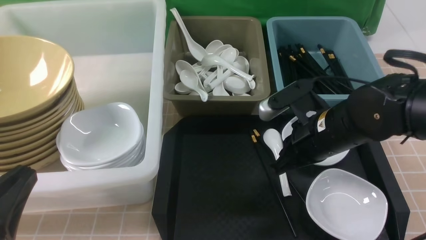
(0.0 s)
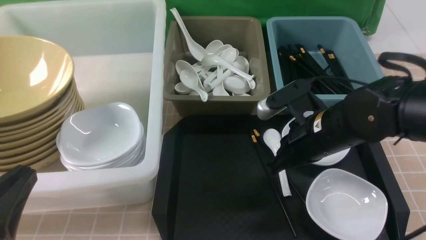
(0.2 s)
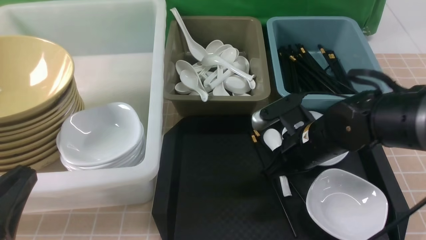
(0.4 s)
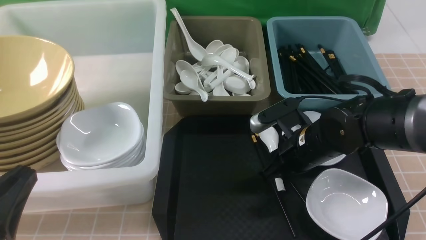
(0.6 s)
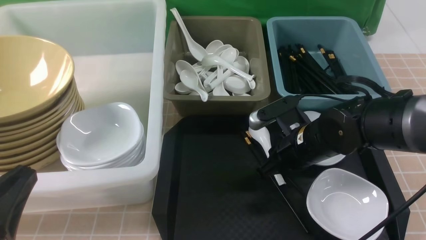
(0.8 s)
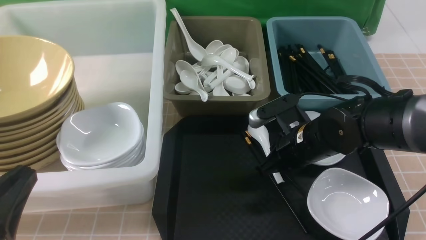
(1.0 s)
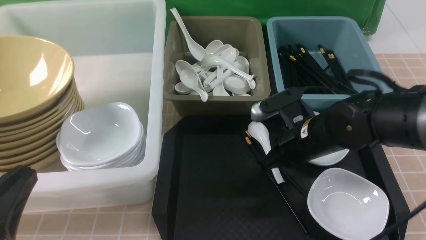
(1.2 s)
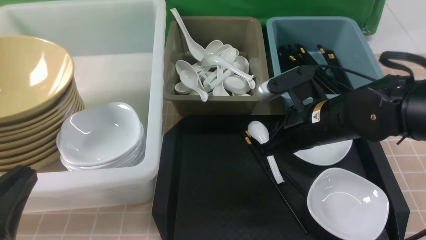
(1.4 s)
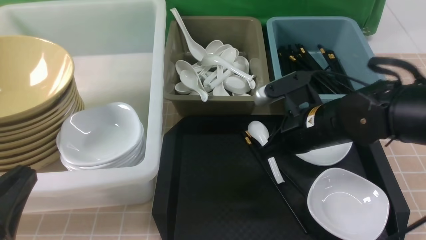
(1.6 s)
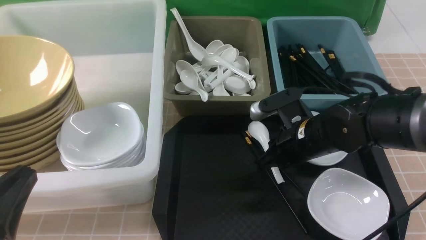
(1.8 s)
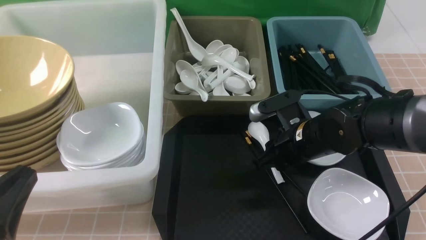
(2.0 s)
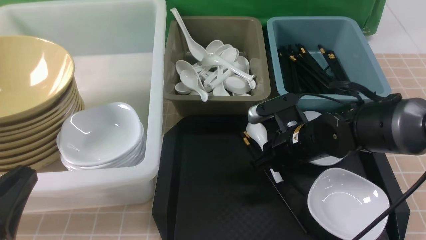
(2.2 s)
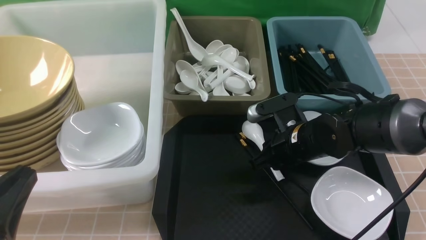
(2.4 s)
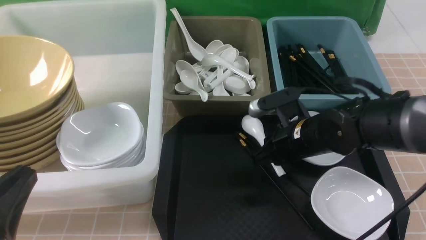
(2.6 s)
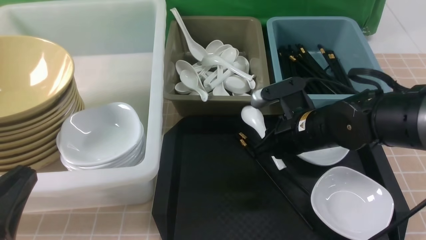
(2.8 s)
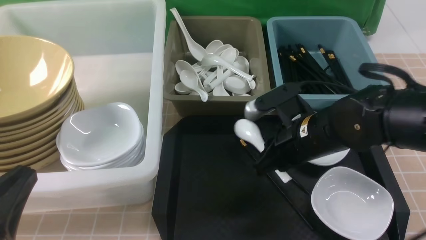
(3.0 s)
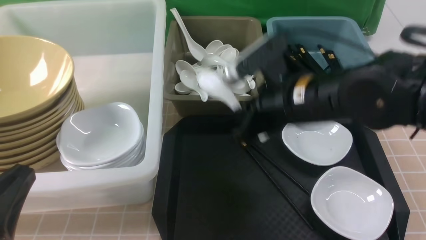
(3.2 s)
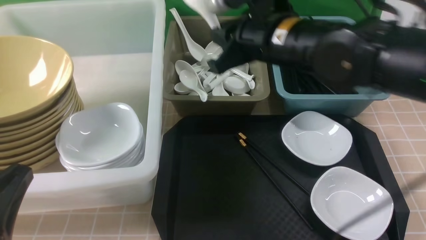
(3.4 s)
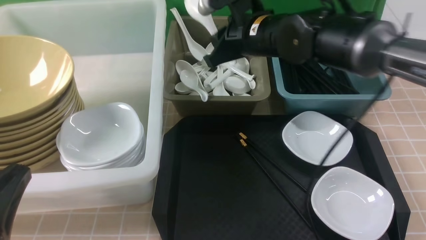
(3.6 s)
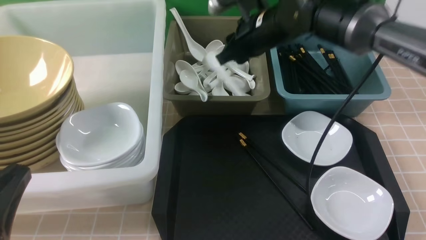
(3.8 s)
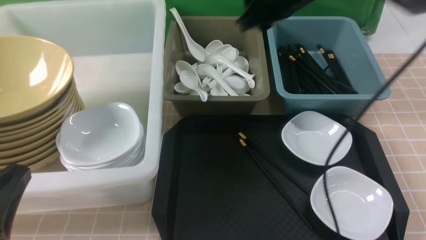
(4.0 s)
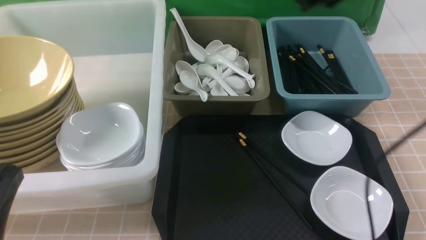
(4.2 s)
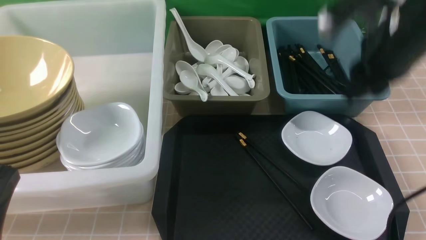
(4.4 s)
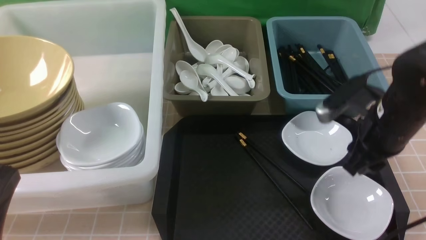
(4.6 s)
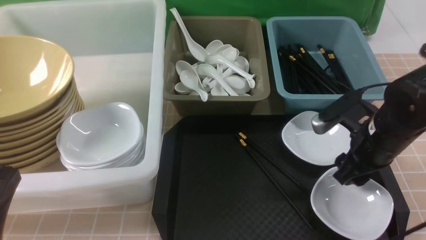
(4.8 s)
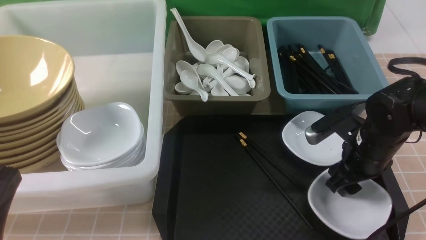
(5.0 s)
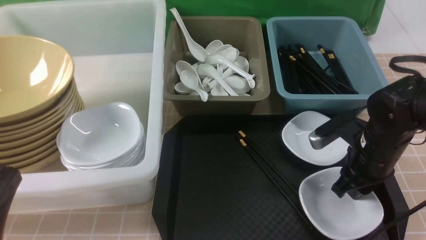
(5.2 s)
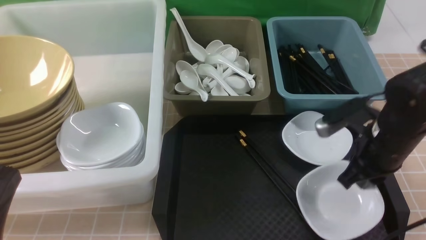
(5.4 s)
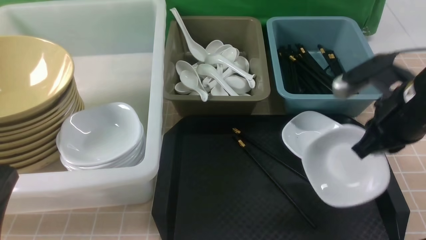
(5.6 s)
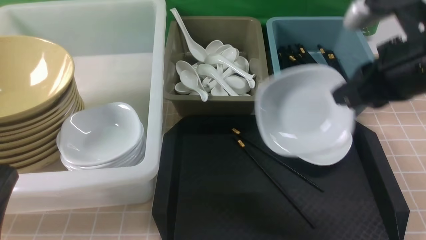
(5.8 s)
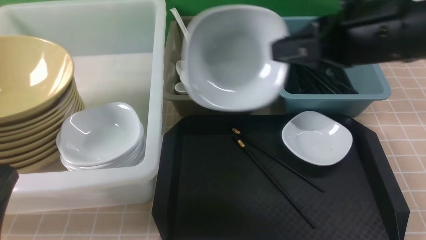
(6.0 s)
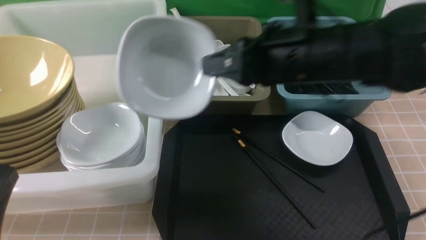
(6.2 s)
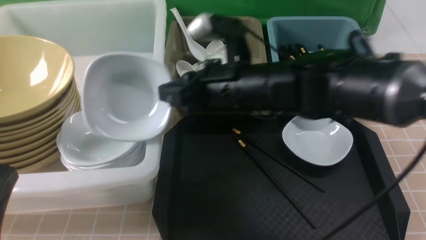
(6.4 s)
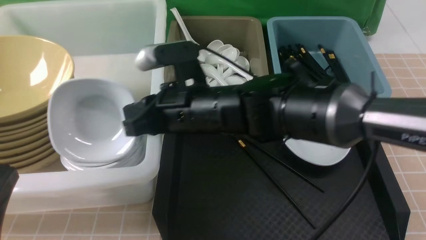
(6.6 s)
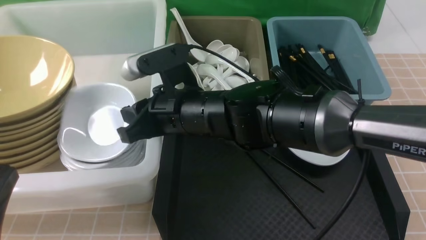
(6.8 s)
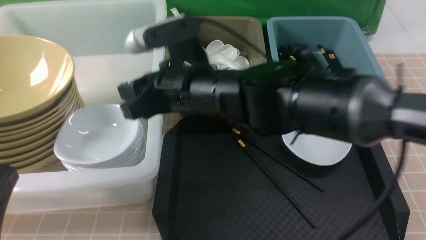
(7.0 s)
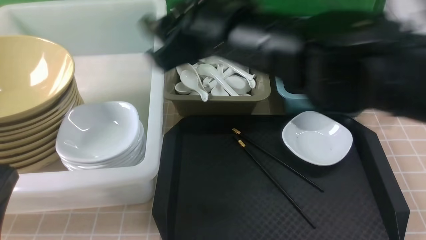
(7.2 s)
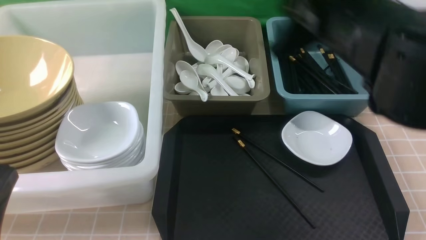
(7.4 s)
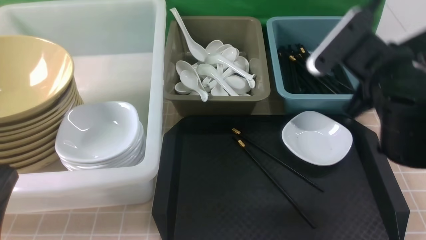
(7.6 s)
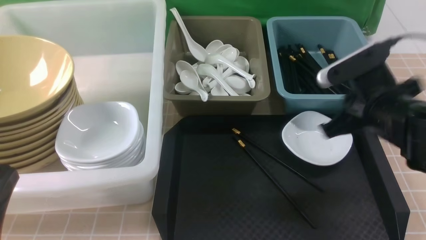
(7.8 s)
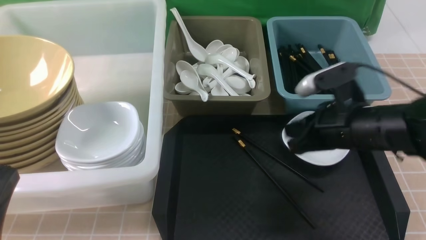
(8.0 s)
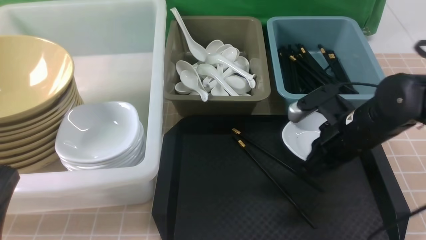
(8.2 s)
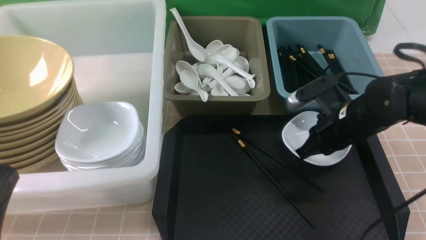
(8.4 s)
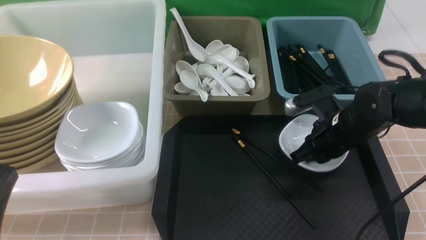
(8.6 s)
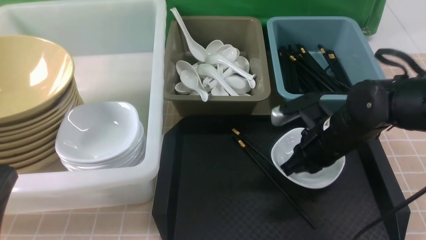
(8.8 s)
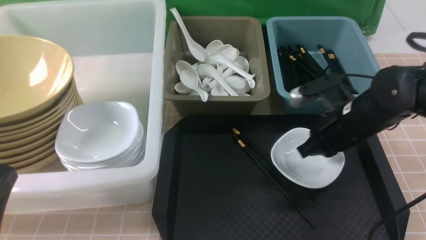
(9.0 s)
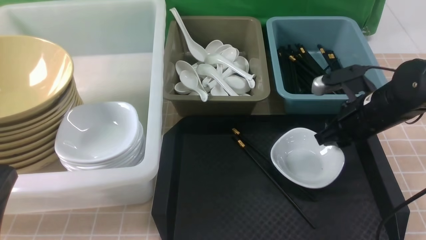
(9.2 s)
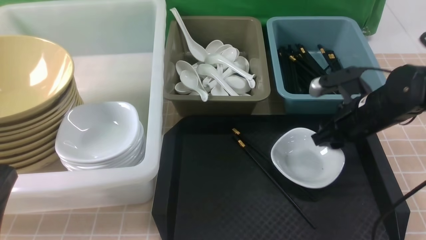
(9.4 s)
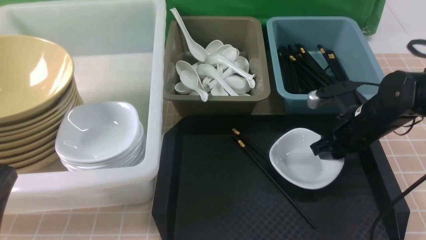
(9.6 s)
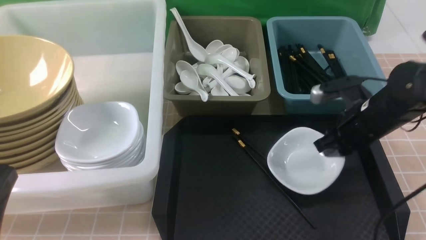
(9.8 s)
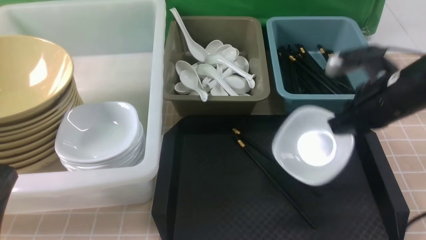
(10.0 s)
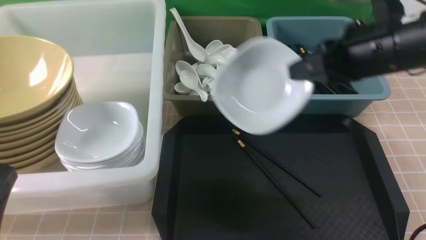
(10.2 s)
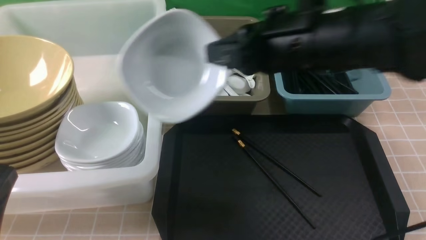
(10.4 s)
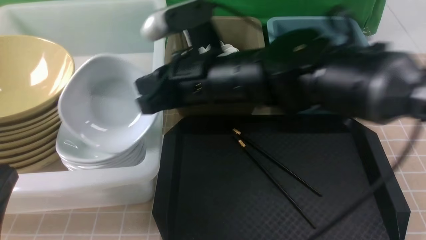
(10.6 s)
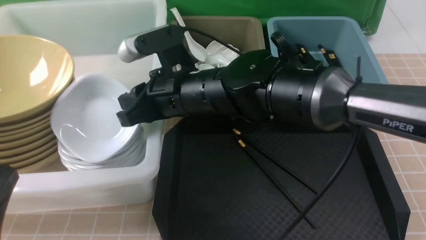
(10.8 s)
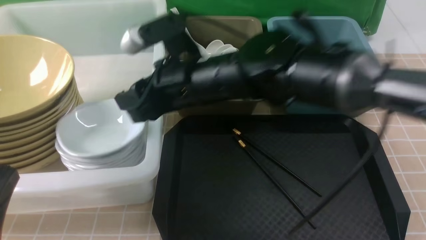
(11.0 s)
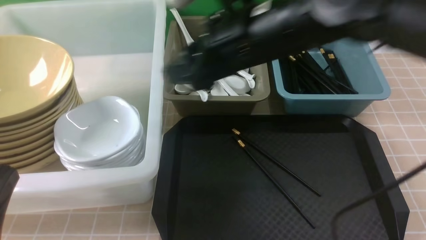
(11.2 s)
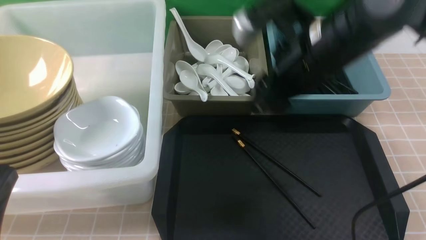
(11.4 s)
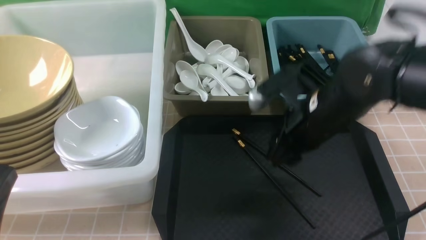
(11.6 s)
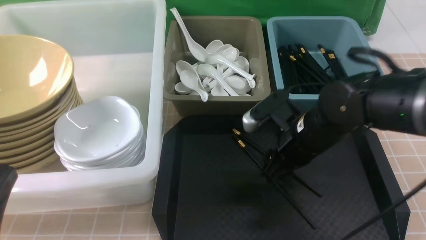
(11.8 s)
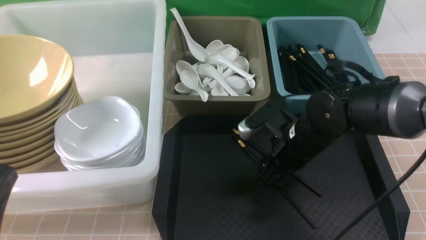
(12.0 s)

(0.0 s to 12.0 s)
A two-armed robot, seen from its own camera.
Task of the whole recording: on brown table put chopsticks spoon bowls plates into blue grey white boxes.
Step, 0.0 s - 2.4 s: use the right arm to grab the soup spoon in the middle.
Step, 2.8 s - 4.2 s: use the right arm to put the soup spoon into the small storage box in the middle.
Step, 4.4 s - 5.8 s: use the right arm to grab the plate.
Step, 6.0 s - 6.8 s: use the right arm to put the plate into the large storage box on the left.
Step, 7.0 s - 10.2 s: use the right arm to grab the plate.
Step, 10.4 s - 11.2 s: use the right arm to put the plate into the large storage box on the left.
0.0 s - 3.0 s: The grippers stay close to where they were, moving slightly.
3.0 s - 4.4 s: The right gripper moves to the right and upward, about 15 cm.
4.4 s - 6.0 s: The right gripper heads to the left and backward, covering roughly 10 cm, reaches roughly 15 cm downward, then returns, and closes.
6.0 s - 7.6 s: The right gripper is displaced downward by approximately 5 cm, moves some 15 cm to the left and comes back, and opens, then closes once more.
7.6 s - 9.0 s: The right gripper moves downward, some 10 cm.
9.0 s - 10.4 s: The right gripper moves upward and to the left, roughly 20 cm, and opens, then closes again.
10.4 s - 12.0 s: The right gripper swings up and down, approximately 15 cm each way, with 2 reversals, and opens its fingers.

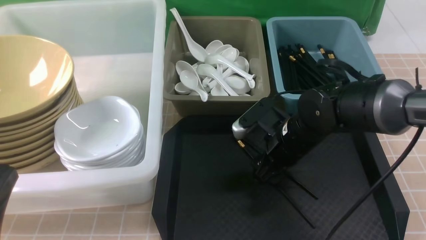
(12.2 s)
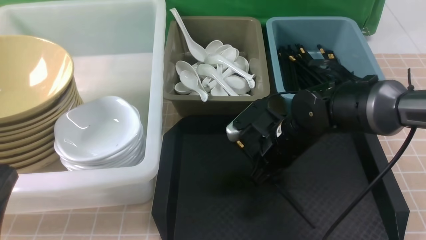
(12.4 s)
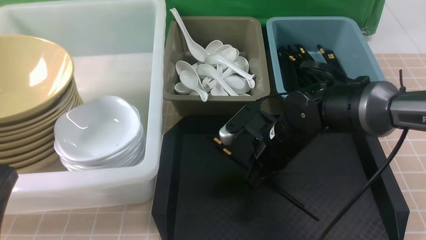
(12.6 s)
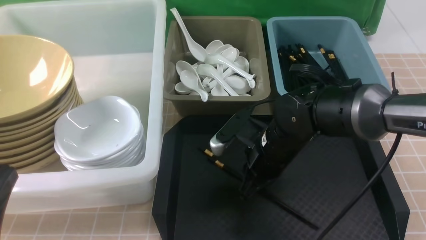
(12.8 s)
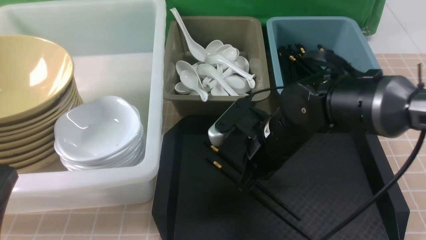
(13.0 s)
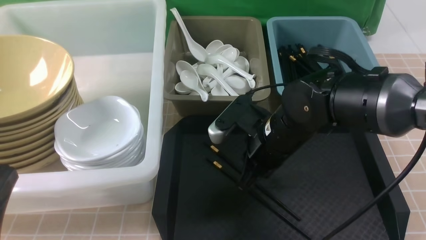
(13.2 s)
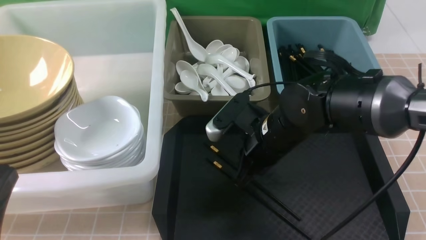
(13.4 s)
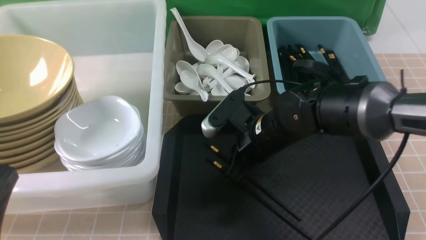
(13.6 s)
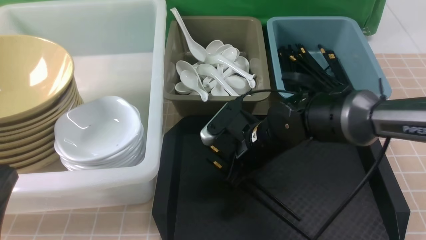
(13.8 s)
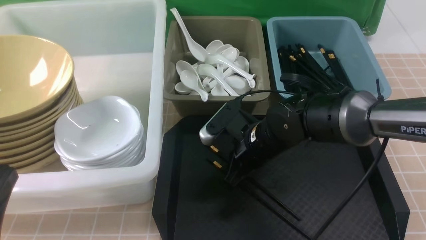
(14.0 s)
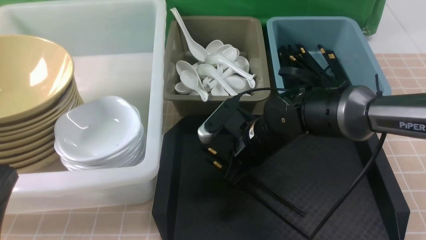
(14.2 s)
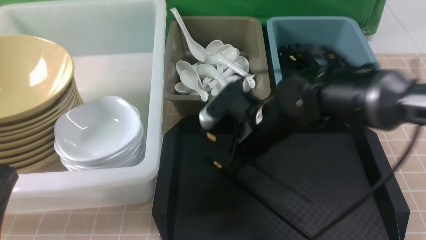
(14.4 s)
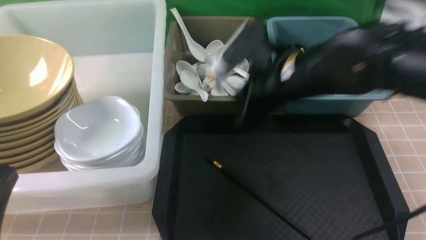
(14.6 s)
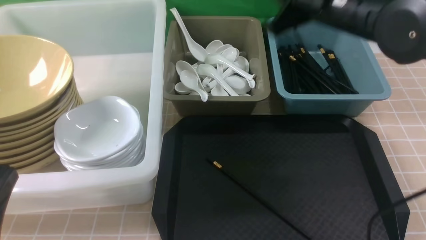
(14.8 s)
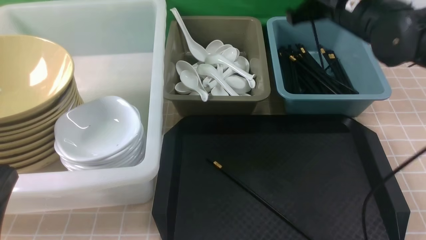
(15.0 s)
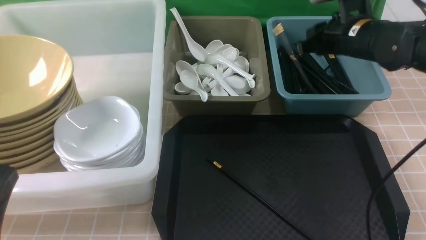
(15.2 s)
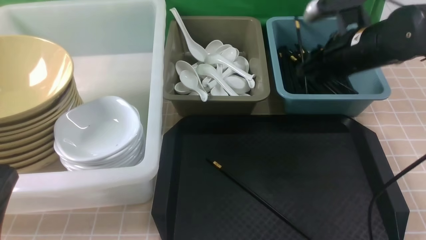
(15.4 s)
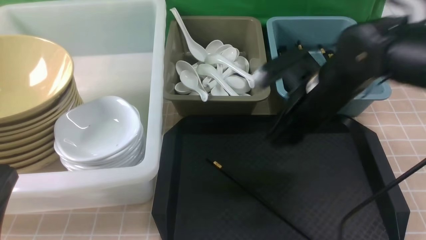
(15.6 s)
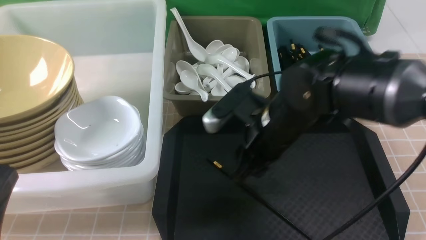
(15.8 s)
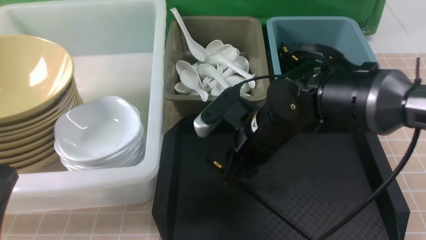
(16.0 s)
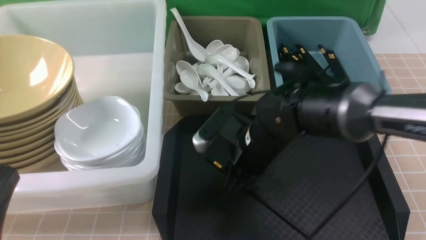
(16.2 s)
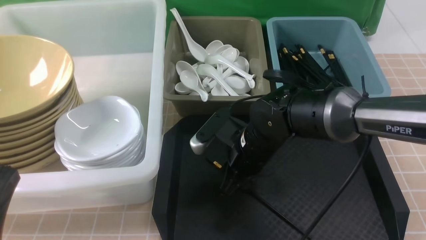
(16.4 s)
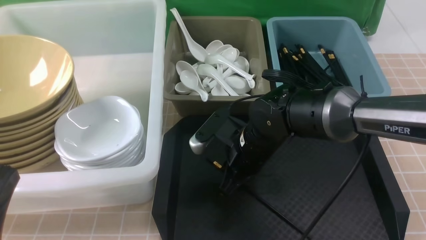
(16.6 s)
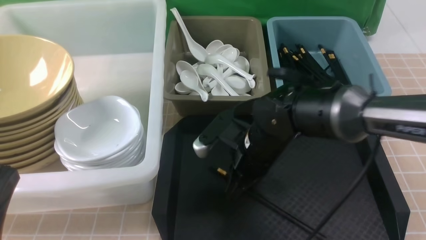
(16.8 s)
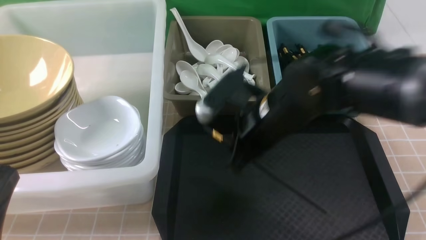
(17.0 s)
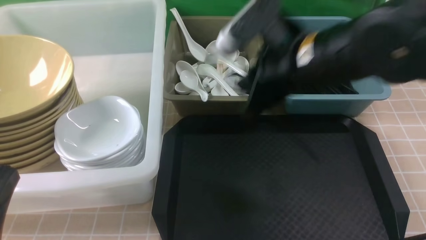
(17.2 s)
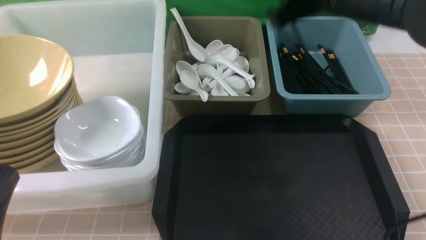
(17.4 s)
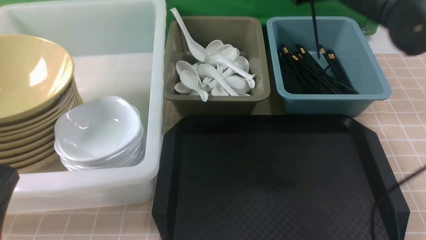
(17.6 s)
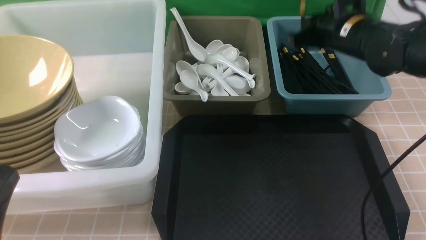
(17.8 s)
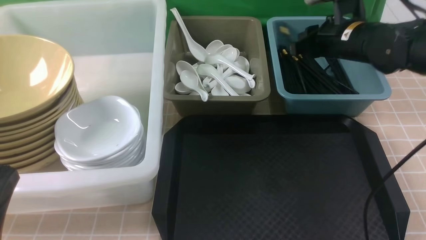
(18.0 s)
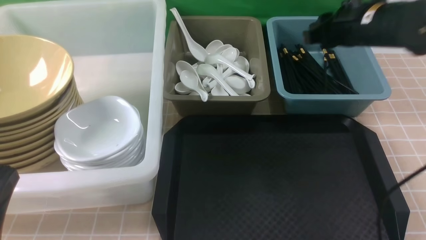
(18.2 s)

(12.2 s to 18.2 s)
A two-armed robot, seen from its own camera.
Task of the whole recording: on brown table put chopsticks spoon bowls plates into blue grey white boxes.
Step, 12.2 s - 14.4 s: use the right arm to grab a chopstick.
Step, 14.6 s - 15.2 s: use the right arm to put a chopstick into the small storage box on the right.
Step, 15.6 s - 17.0 s: use the right arm to grab a chopstick.
Step, 17.2 s - 17.8 s: use the right arm to put a chopstick into the small storage box on the right.
12.2 s - 13.8 s: The right gripper closes its fingers.
13.8 s - 15.2 s: The right gripper shifts approximately 20 cm to the right, upward and forward.
15.2 s - 16.6 s: The right gripper moves to the left, downward and backward, roughly 20 cm.
16.6 s - 18.2 s: The right gripper goes up and down, roughly 20 cm each way, reversing 2 times.
